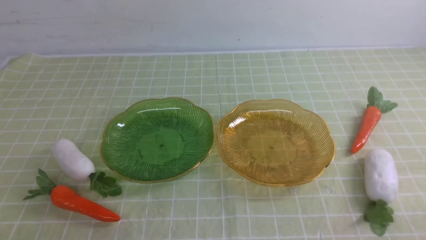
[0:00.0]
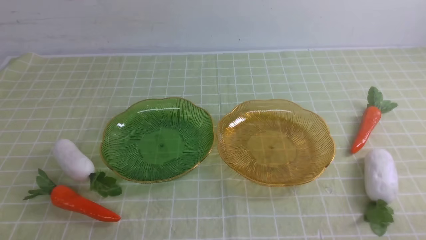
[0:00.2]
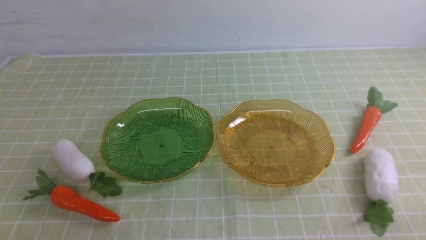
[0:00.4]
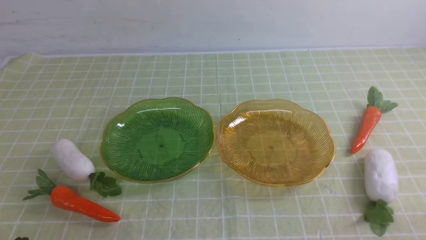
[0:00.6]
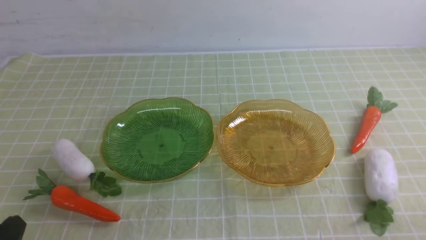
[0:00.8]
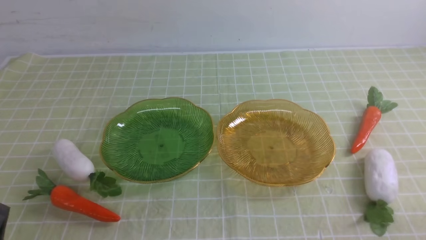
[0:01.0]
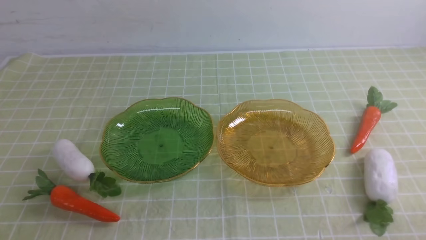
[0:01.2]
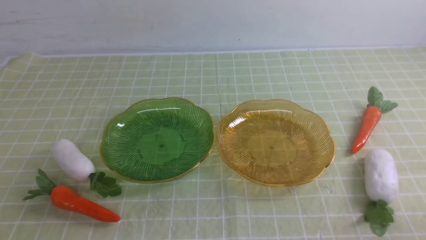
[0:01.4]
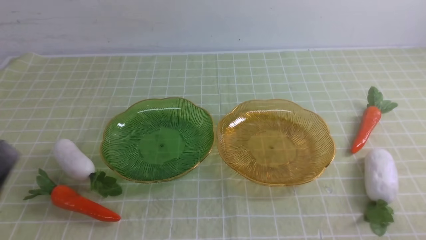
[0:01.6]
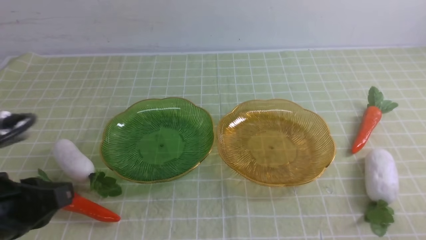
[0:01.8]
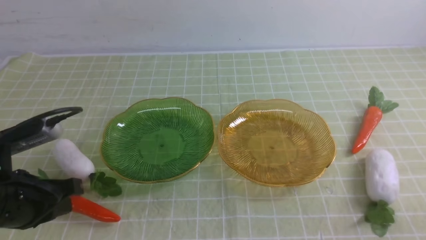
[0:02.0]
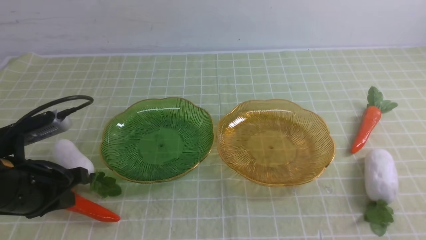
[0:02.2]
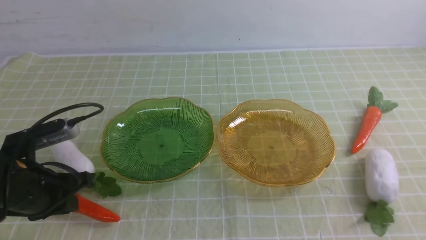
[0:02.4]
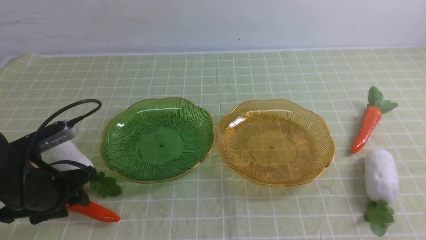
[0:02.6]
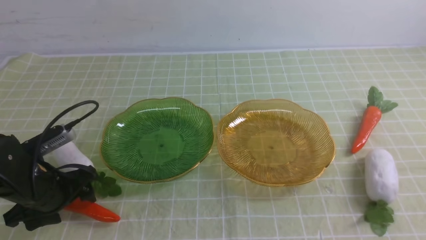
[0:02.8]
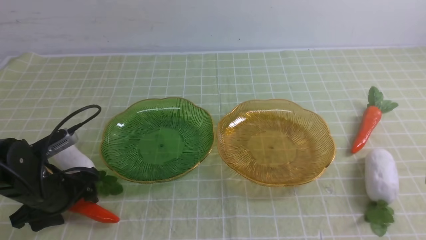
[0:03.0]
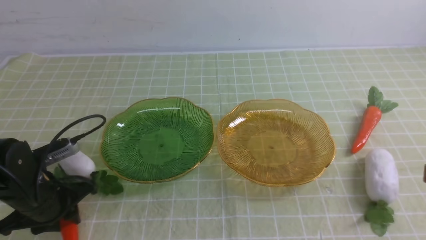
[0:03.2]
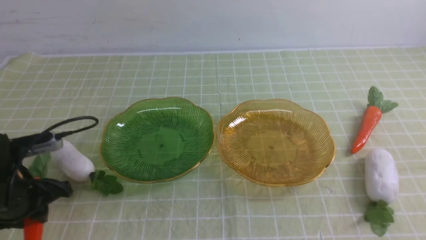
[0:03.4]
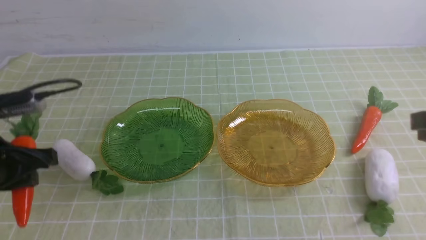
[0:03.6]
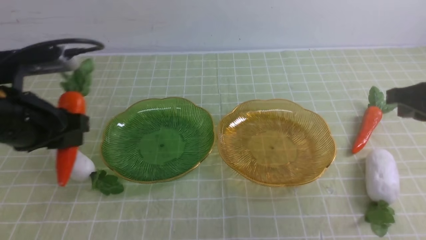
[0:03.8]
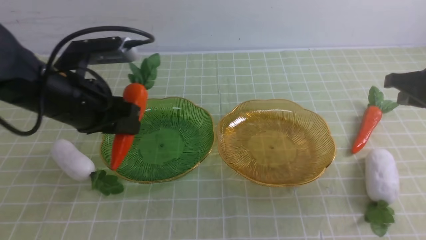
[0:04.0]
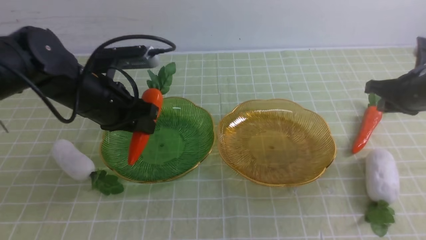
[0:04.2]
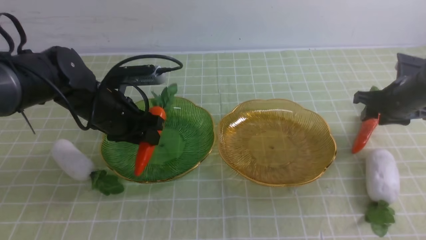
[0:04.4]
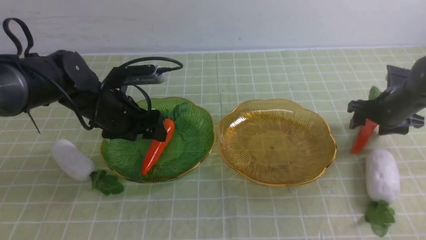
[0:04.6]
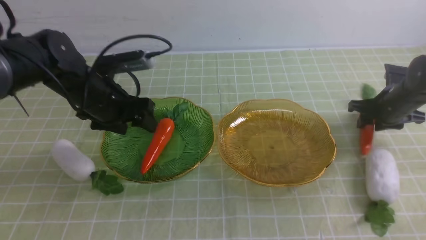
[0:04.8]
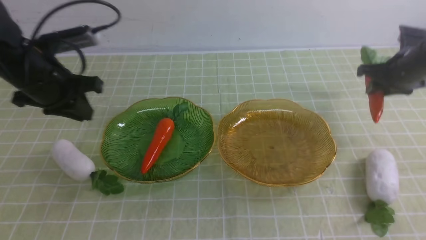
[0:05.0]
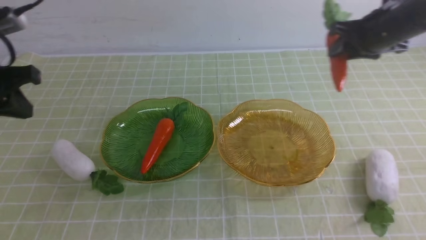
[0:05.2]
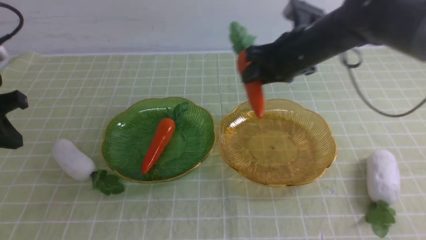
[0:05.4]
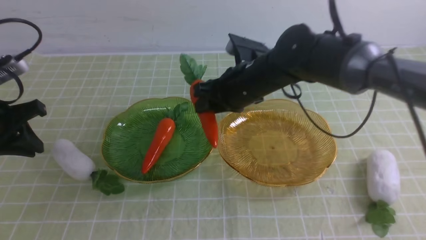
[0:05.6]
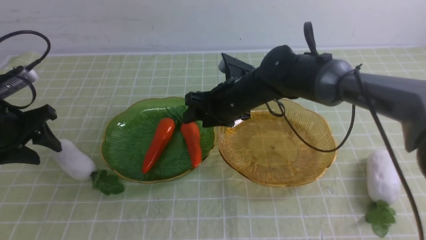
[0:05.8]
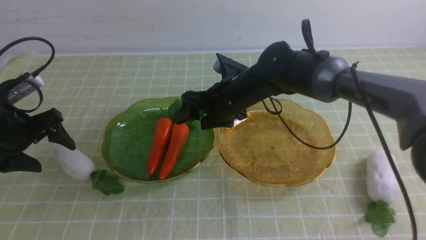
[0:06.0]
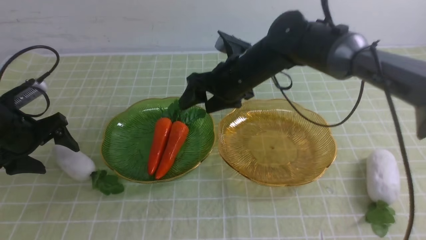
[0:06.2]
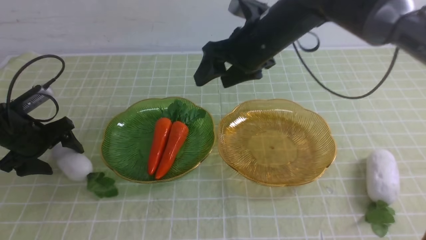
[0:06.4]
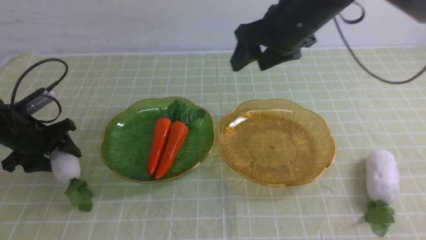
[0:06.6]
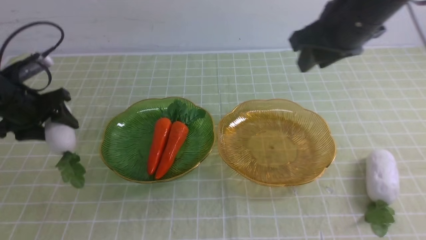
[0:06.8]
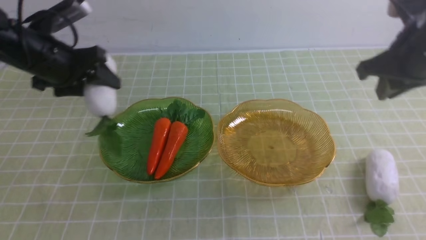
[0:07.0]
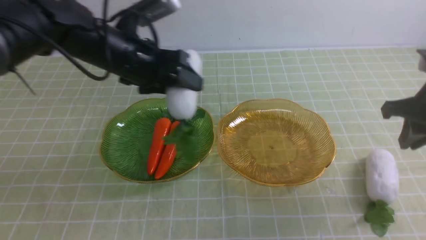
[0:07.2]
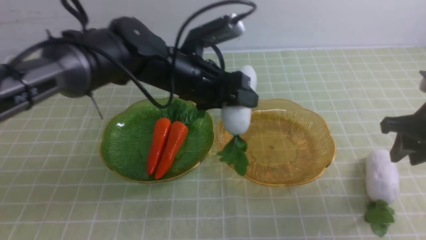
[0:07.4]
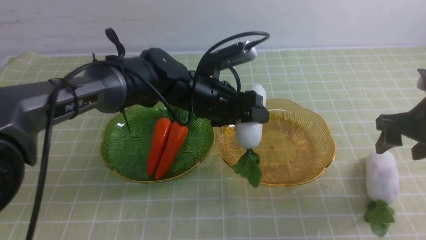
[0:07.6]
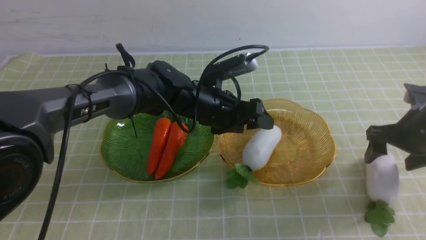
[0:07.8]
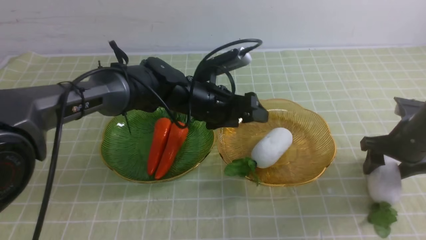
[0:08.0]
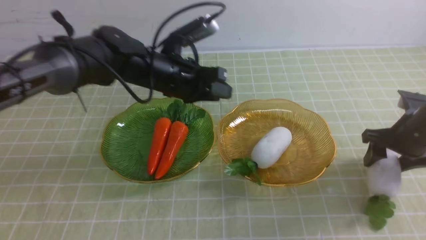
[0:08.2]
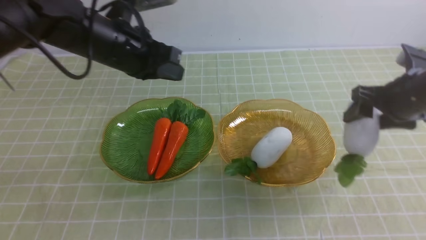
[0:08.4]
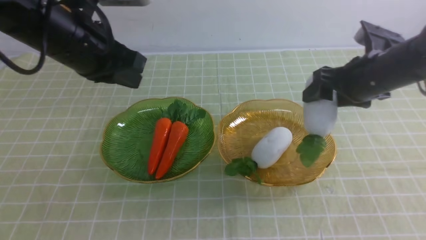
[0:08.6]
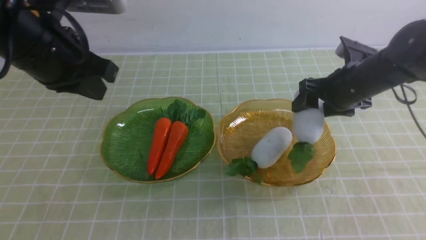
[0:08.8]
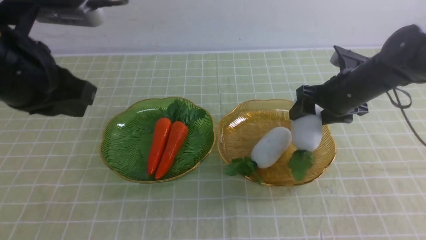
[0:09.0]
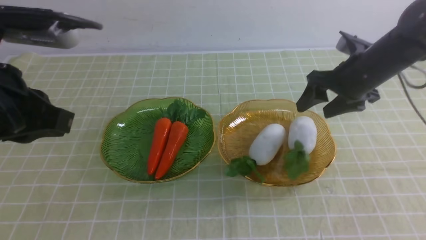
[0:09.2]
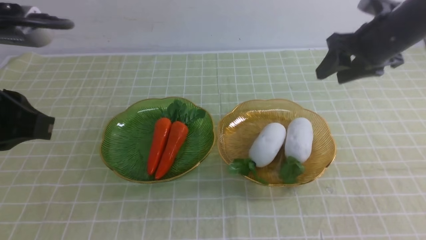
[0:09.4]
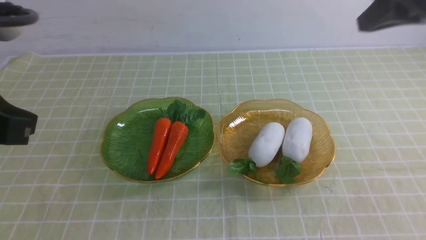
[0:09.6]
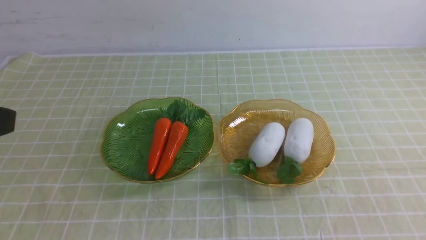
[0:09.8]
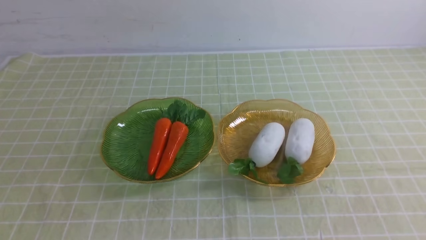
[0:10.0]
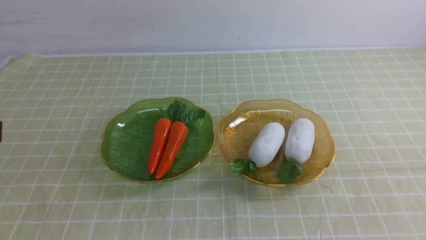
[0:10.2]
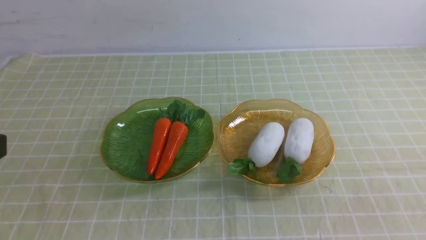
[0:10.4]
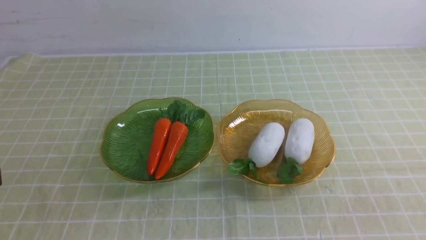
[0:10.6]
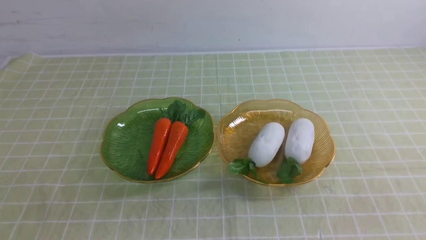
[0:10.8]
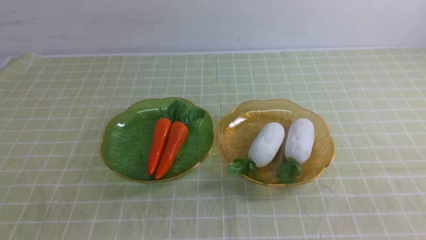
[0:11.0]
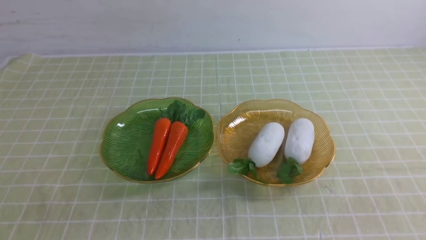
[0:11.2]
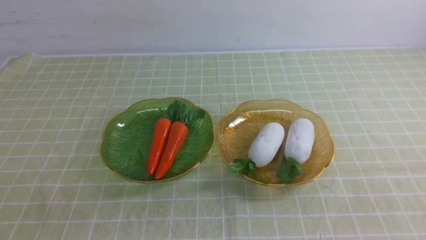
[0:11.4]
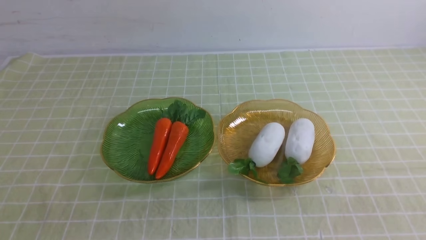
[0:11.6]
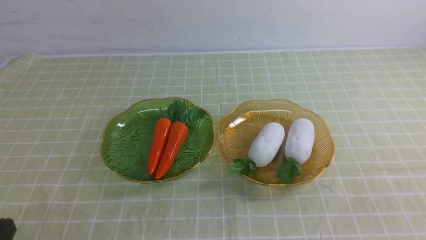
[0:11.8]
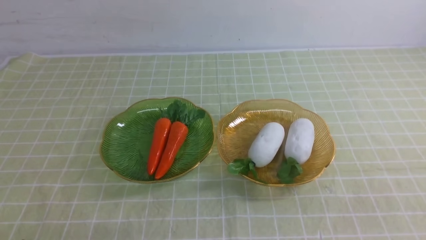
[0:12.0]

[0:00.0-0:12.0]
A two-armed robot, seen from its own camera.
Step, 0:00.0 to 0:04.6: use the left arm to grab a carrot and put it into the left plate.
Step, 0:05.0 to 0:06.2: use the right arm to grab a carrot and put it into the left plate.
Step, 0:06.6 to 0:07.8: use the left arm to grab a radish and put it into the right plate.
Step, 0:08.0 to 0:09.2: use the right arm to grab a radish and put it into the right plate.
0:01.6 to 0:03.0: The left gripper moves forward and downward, some 20 cm, and opens up.
0:03.0 to 0:04.4: The left gripper moves forward, to the right and upward, approximately 15 cm; the right gripper shifts some 35 cm forward and downward, and opens its fingers.
0:04.4 to 0:06.0: The left gripper heads to the left, covering approximately 15 cm, and closes, then reopens, while the right gripper is displaced to the left by about 30 cm.
0:06.0 to 0:07.6: Both grippers move to the right, approximately 30 cm. The right gripper closes, then reopens.
0:07.6 to 0:09.0: The left gripper heads to the left, upward and backward, covering approximately 30 cm, and closes up. Meanwhile the right gripper goes about 10 cm to the left and forward.
0:09.0 to 0:10.4: The left gripper shifts some 15 cm backward. Meanwhile the right gripper moves backward, about 40 cm, and closes.

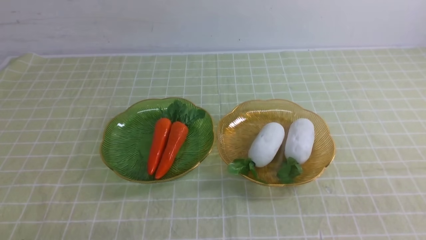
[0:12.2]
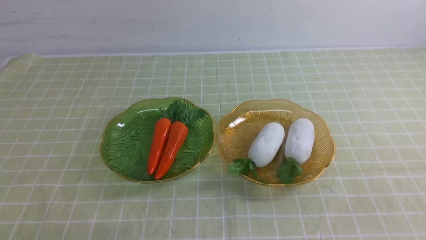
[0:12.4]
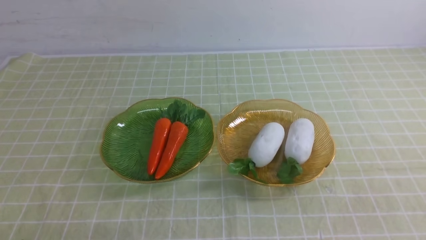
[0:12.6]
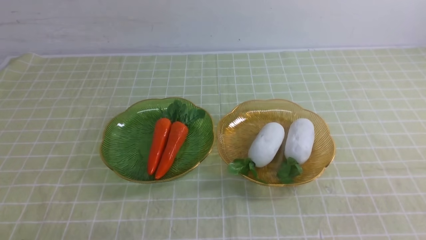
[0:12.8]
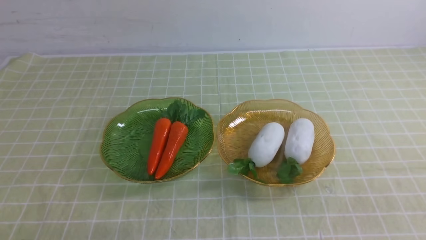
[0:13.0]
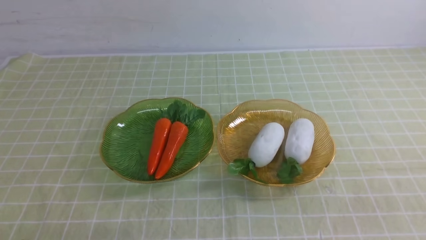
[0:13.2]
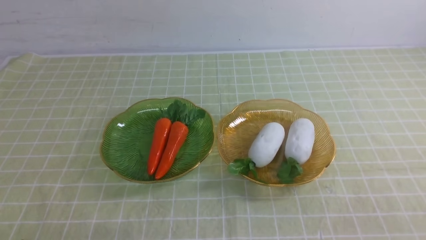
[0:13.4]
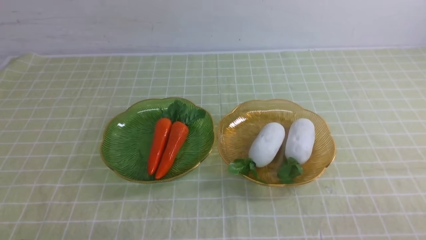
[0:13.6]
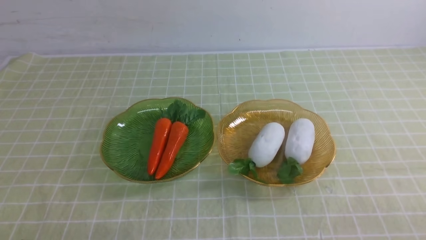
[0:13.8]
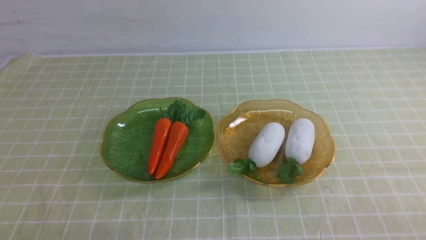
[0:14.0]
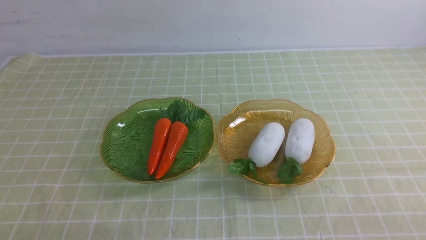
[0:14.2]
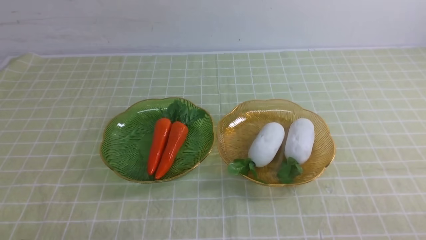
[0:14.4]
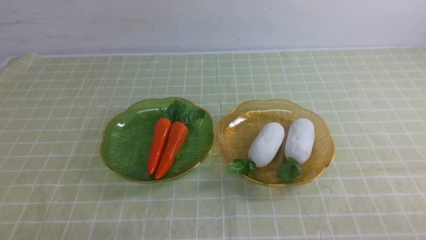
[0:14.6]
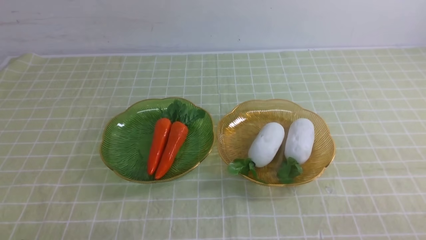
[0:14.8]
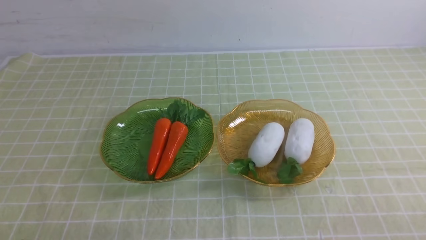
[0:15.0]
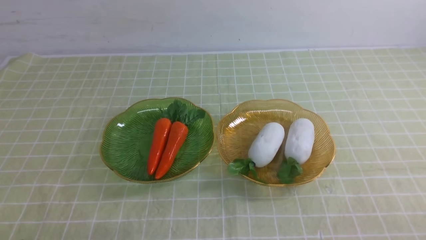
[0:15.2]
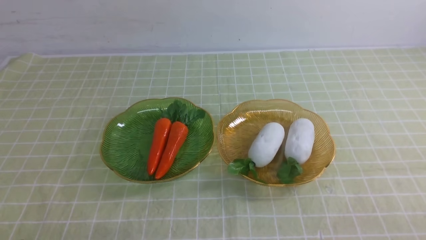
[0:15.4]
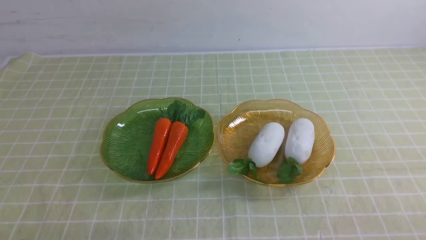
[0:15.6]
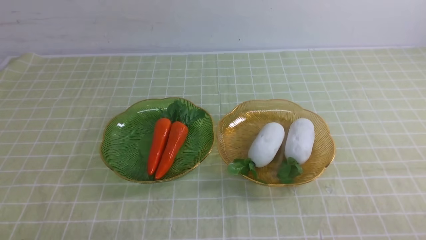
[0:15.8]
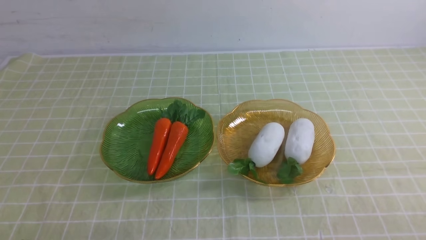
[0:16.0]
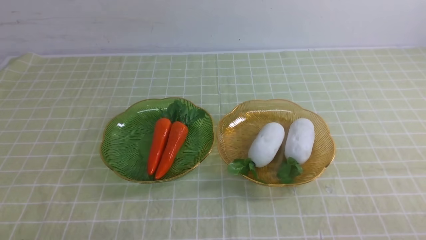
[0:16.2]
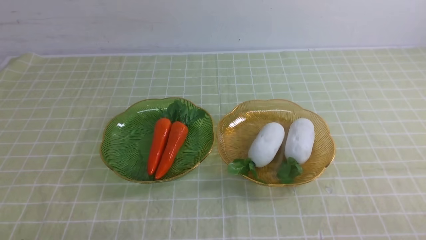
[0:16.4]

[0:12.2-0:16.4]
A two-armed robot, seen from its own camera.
0:15.0 to 0:16.4: Both grippers stay put.
